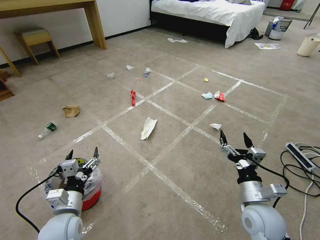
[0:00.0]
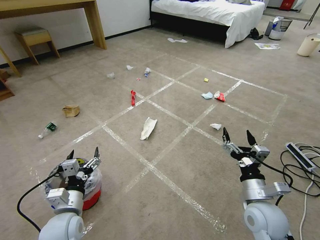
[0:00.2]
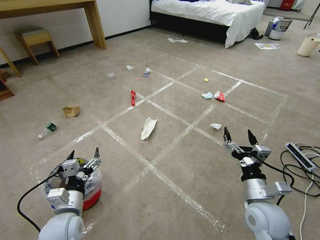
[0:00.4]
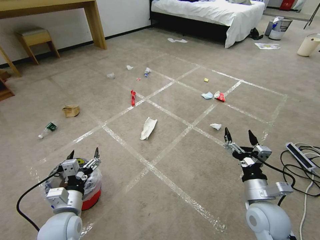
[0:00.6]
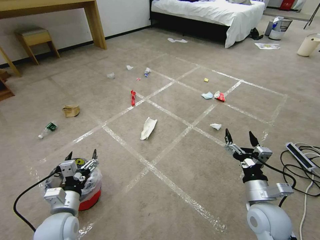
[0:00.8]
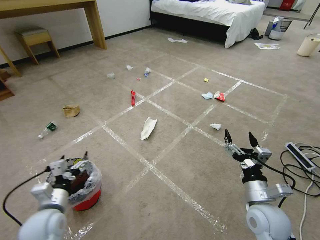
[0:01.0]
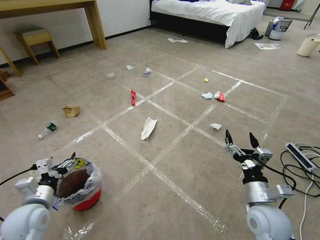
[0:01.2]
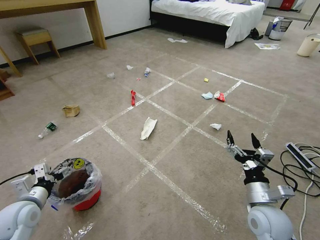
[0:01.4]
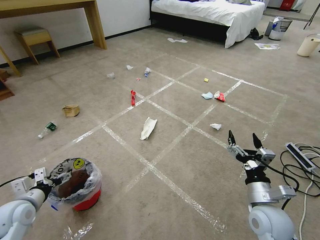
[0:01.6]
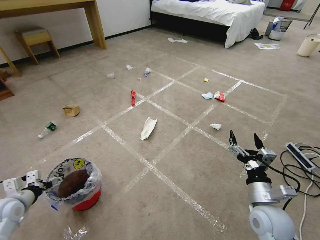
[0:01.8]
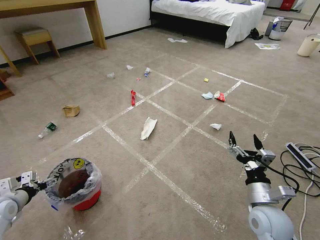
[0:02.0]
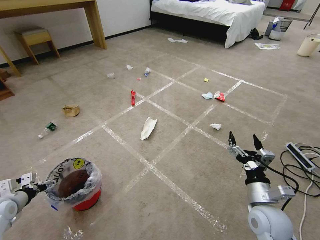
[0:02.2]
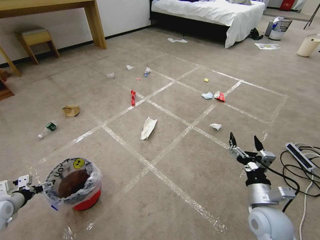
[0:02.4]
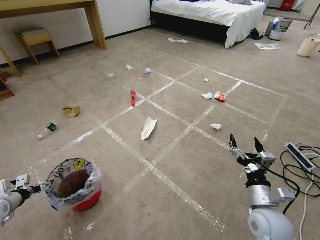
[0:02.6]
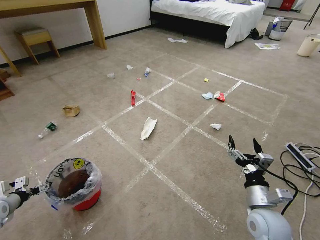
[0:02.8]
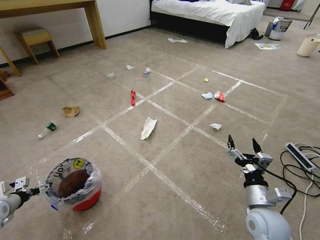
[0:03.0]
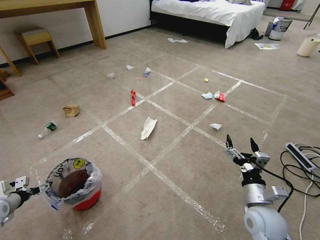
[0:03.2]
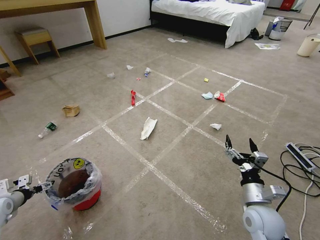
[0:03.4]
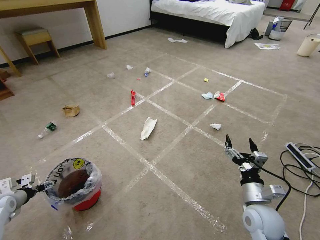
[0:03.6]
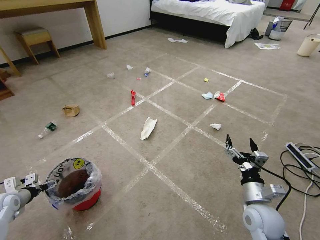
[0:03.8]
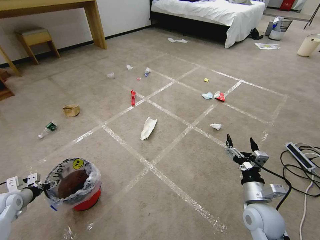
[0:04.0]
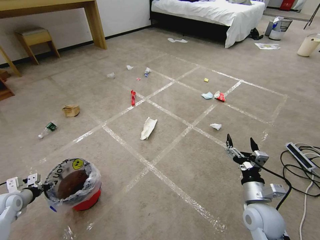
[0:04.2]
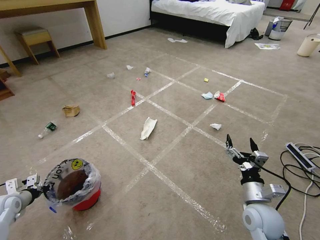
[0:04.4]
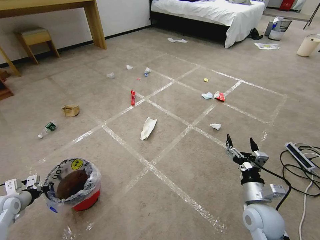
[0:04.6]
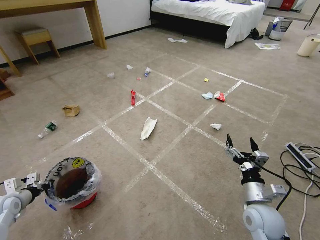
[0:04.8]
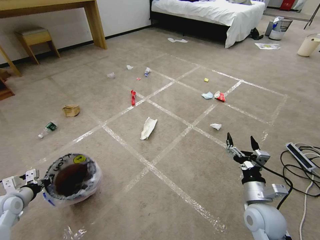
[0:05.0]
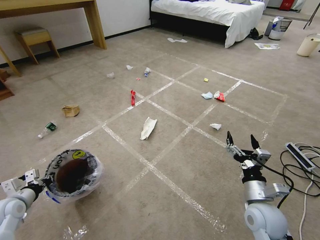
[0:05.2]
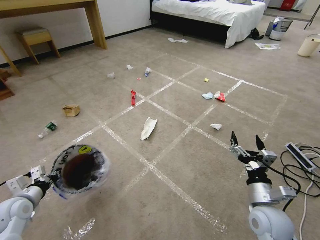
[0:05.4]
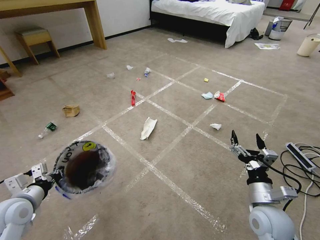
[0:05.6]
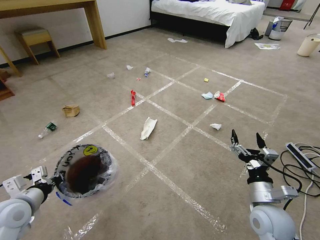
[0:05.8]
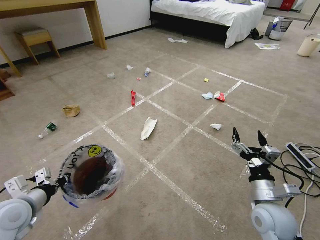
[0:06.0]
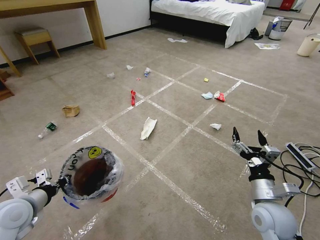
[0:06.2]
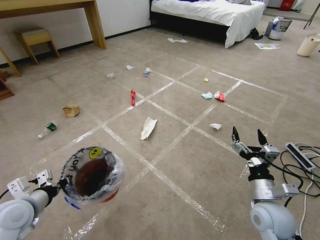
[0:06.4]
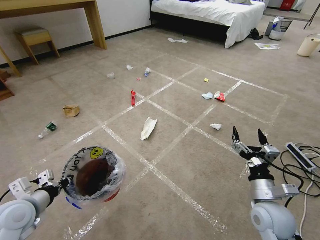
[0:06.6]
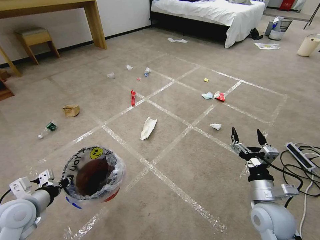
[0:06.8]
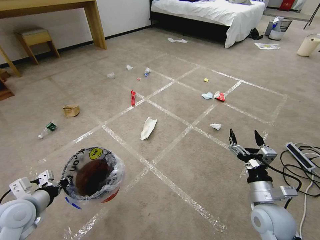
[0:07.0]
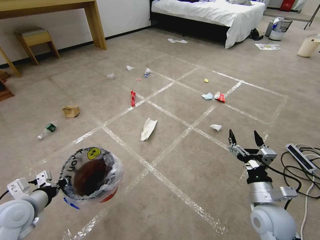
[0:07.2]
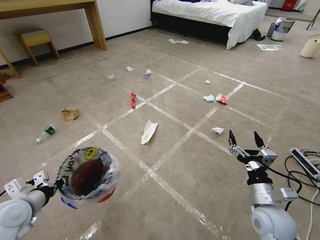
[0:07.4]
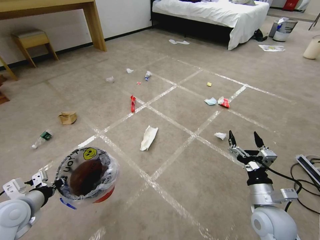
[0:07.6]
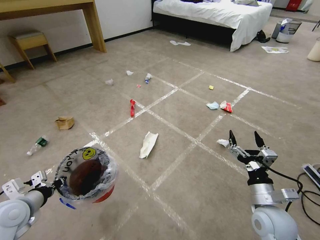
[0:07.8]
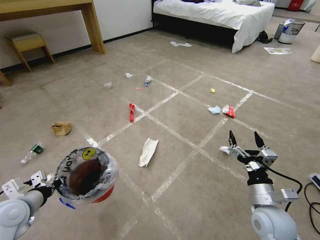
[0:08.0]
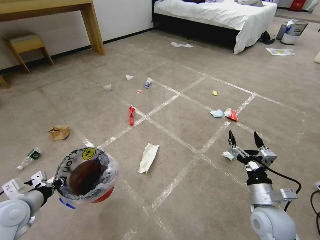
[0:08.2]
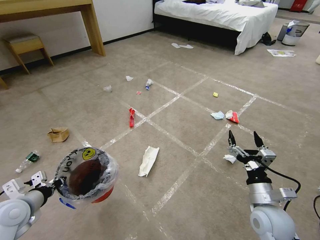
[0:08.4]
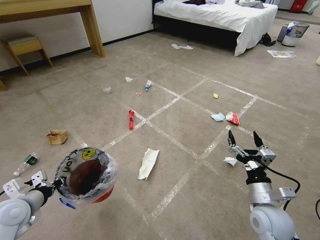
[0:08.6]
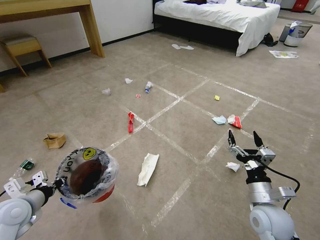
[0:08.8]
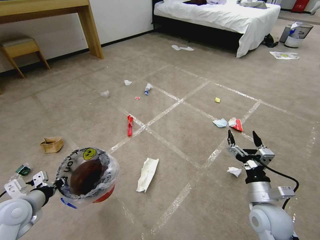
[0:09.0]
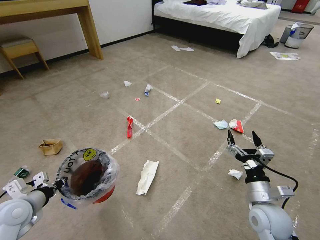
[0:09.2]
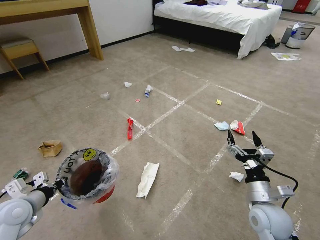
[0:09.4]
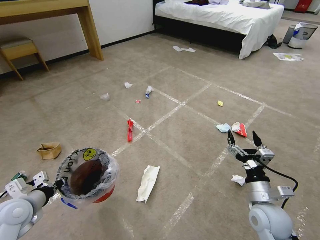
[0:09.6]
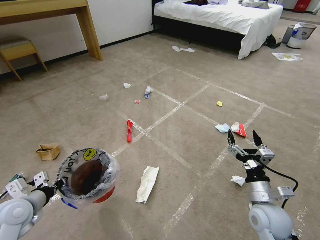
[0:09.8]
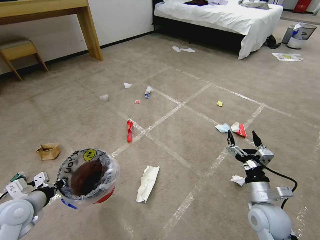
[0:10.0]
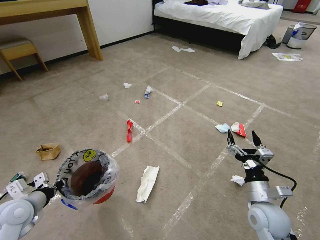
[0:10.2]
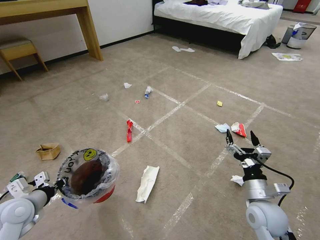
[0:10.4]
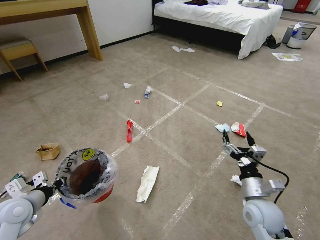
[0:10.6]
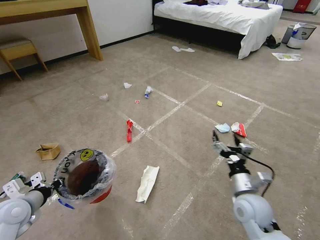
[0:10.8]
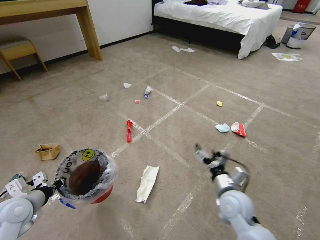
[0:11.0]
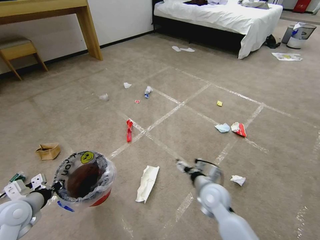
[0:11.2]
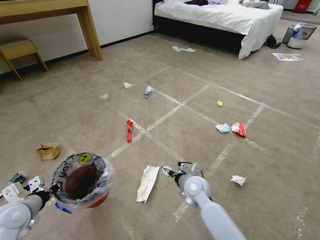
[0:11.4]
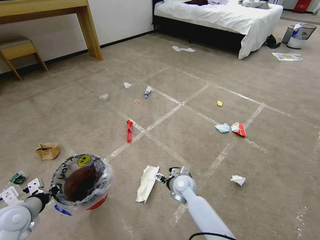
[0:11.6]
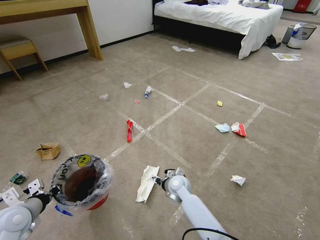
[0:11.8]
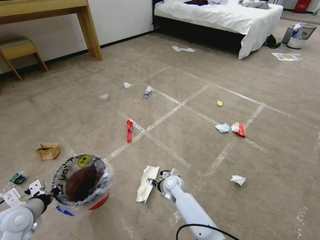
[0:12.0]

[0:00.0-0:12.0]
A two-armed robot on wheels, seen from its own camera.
Task of the whole recording: Pick up the trash bin and place the garbage on the floor into it.
0:01.6 to 0:03.0: The left gripper travels to the left by some 15 cm.
0:03.0 to 0:04.4: The left gripper closes.
0:04.4 to 0:06.0: The left gripper travels to the right and upward by approximately 15 cm.
0:06.0 to 0:07.6: The grippers stay close to where they were, moving slightly.
0:09.0 to 0:10.4: Neither gripper changes place.
0:10.4 to 0:12.0: The right gripper heads to the left, forward and downward, covering approximately 35 cm.

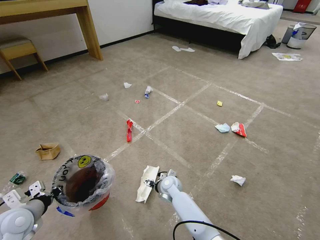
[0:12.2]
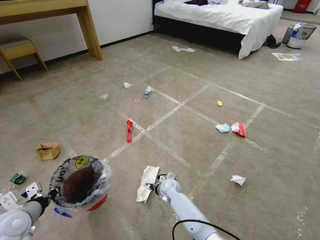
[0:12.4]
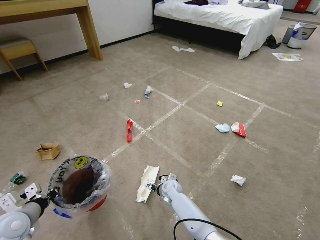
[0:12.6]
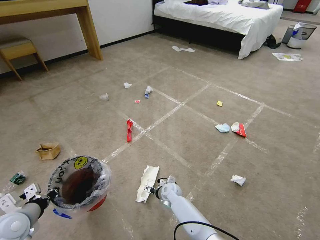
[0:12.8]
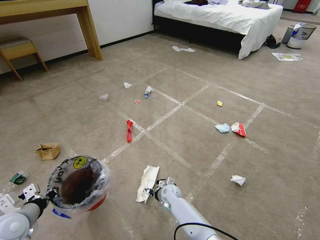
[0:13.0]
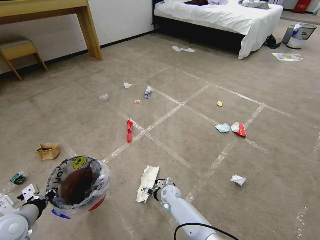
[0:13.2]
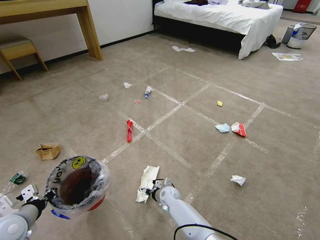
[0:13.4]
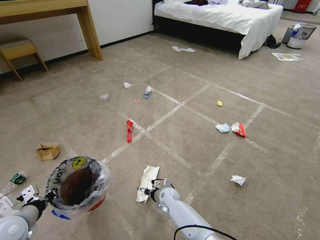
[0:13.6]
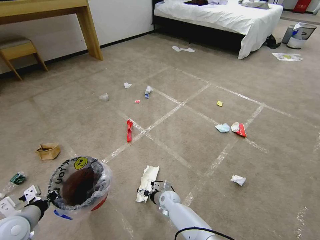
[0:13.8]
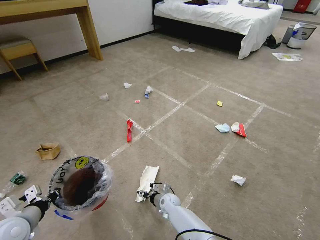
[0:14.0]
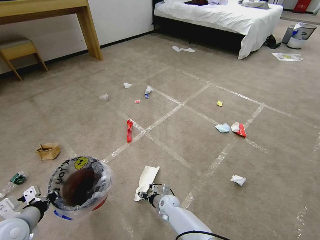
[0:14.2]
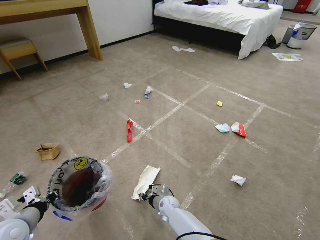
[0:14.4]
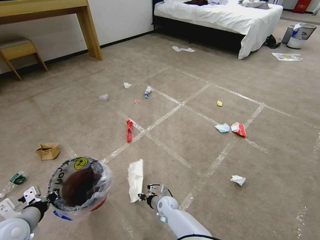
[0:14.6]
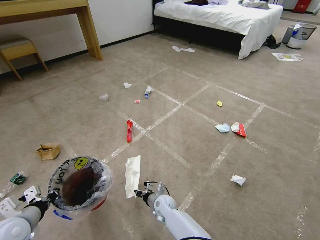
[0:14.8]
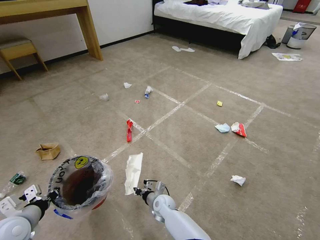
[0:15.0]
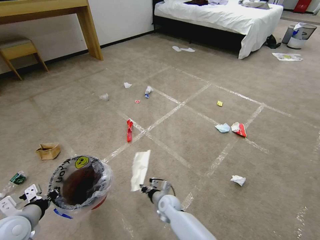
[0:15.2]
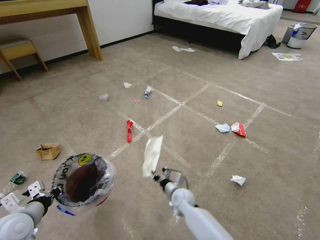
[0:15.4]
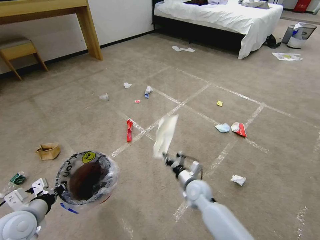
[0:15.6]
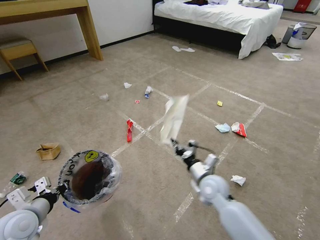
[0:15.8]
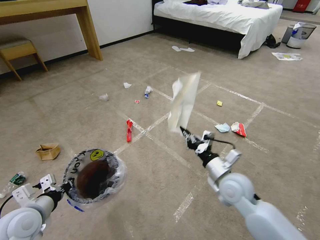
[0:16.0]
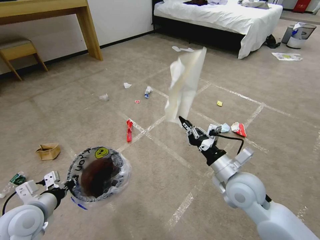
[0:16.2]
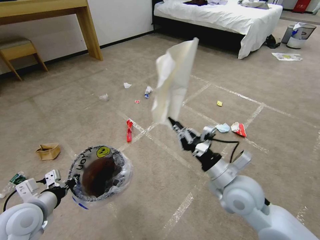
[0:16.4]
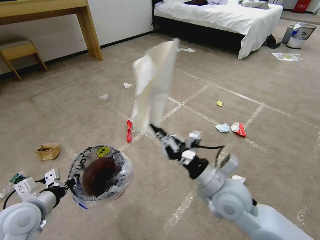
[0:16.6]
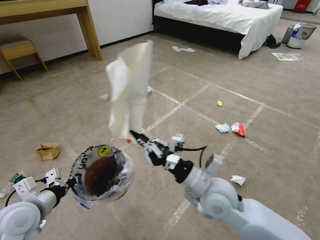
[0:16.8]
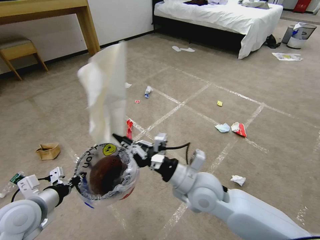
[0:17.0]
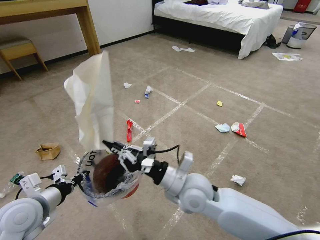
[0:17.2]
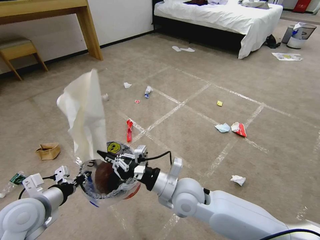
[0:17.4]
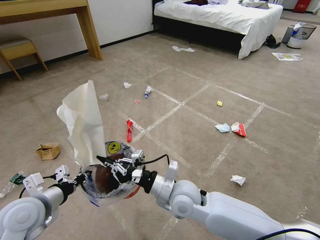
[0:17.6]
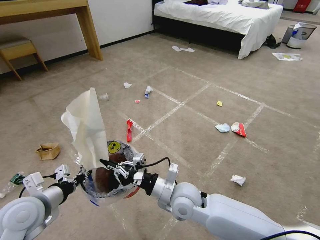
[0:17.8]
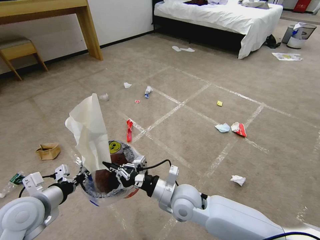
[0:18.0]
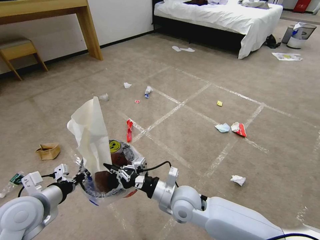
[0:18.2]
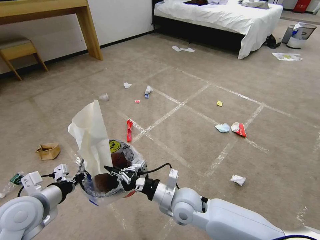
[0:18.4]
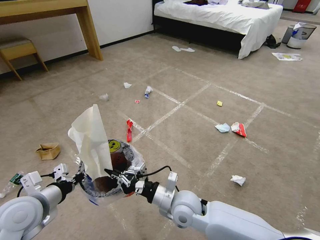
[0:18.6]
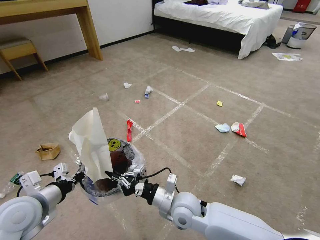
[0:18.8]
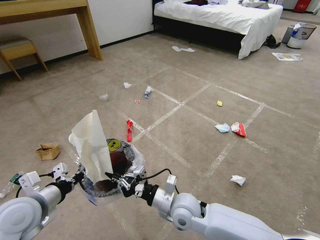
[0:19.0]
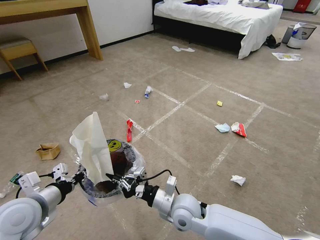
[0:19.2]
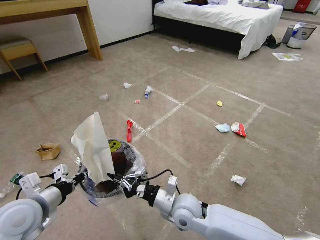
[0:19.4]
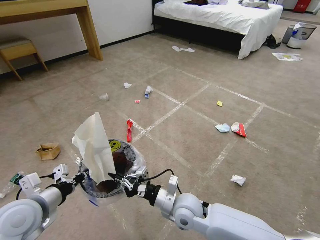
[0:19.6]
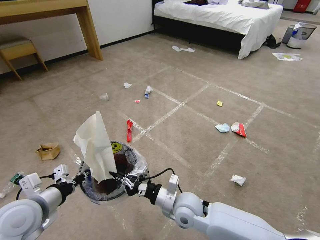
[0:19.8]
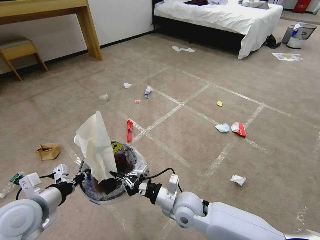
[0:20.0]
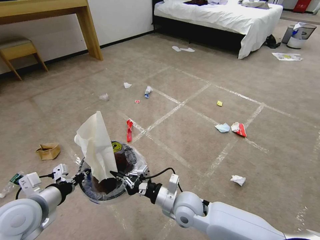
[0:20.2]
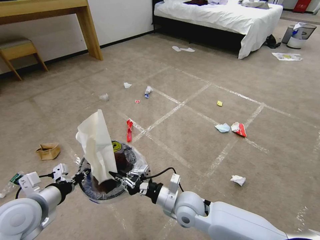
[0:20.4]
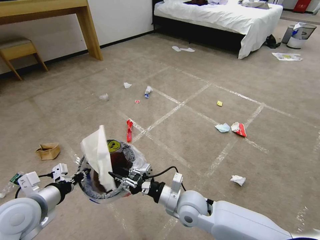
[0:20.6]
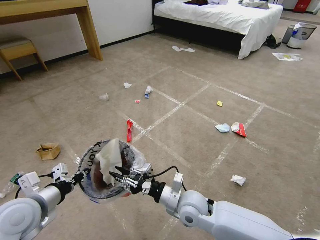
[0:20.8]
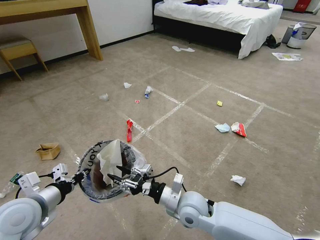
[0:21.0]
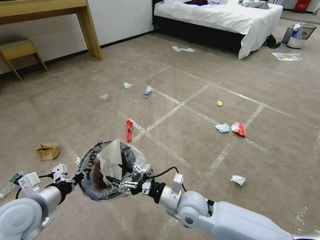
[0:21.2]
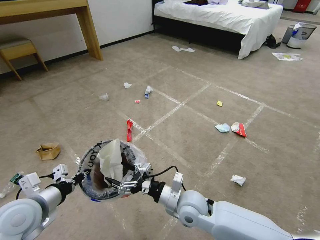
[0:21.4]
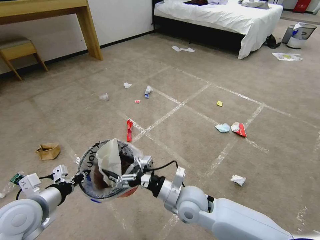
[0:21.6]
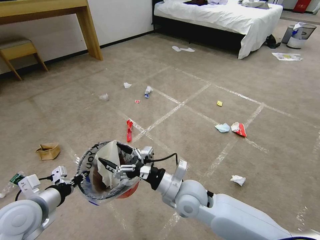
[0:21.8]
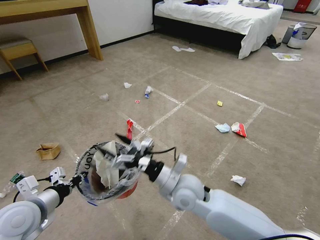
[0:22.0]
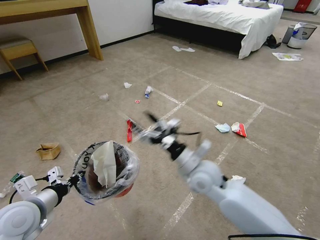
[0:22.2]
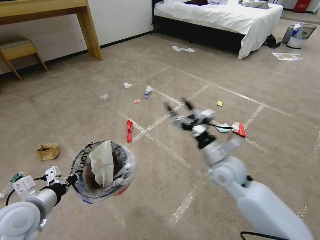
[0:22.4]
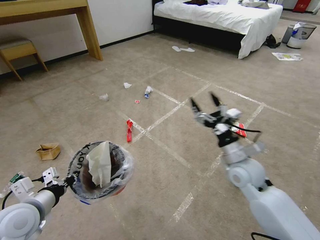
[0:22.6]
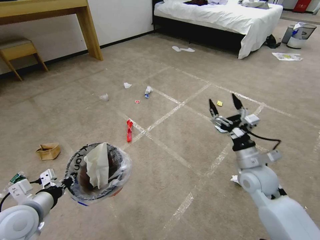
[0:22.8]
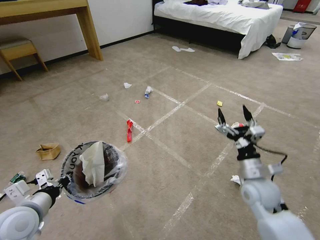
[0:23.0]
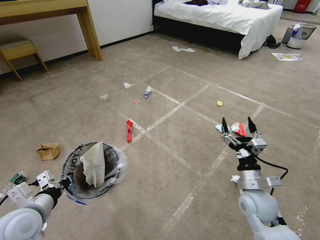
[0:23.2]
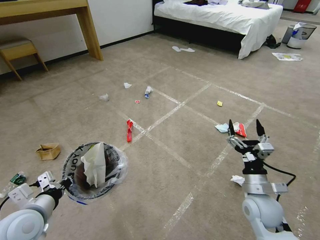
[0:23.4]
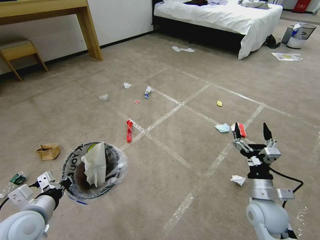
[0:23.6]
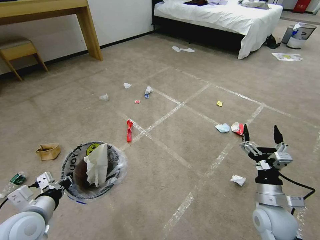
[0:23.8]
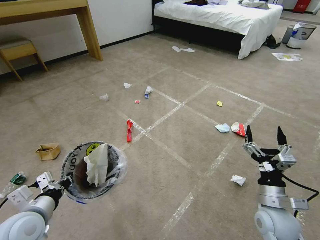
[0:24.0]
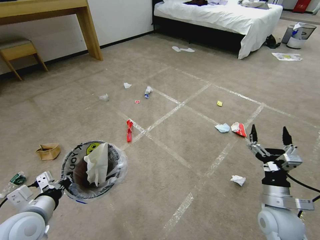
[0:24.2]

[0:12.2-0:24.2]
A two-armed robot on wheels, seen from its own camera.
Task of the whole recording: Pick up the trash bin and place the garbage on the floor into it.
0:12.2 to 0:13.8: The right gripper goes about 10 cm downward.
0:13.8 to 0:15.2: The right gripper closes its fingers.
0:15.2 to 0:16.6: The right gripper travels upward and to the right by about 35 cm, while the left gripper moves roughly 5 cm.
0:16.6 to 0:18.2: The right gripper heads to the left and downward, covering some 15 cm.
0:18.2 to 0:19.8: The grippers move only a little.
0:19.8 to 0:21.2: The right gripper opens its fingers.
0:21.2 to 0:22.6: The right gripper heads to the right, upward and forward, covering approximately 20 cm.
0:22.6 to 0:24.2: The right gripper shifts some 15 cm backward, to the right and downward.
